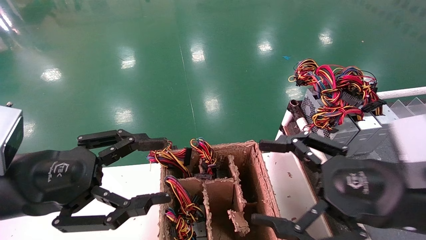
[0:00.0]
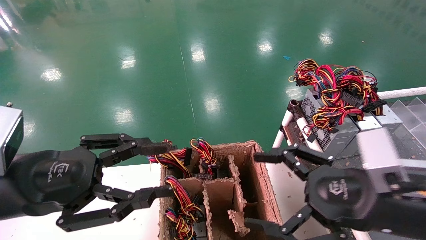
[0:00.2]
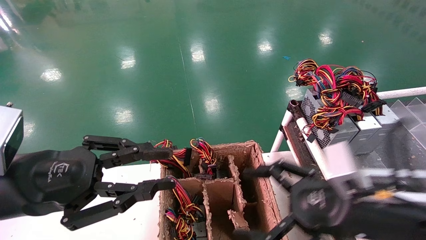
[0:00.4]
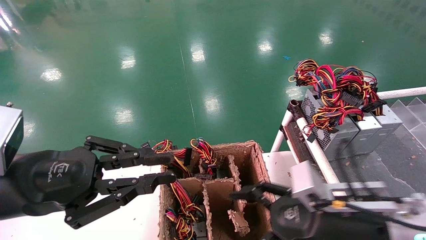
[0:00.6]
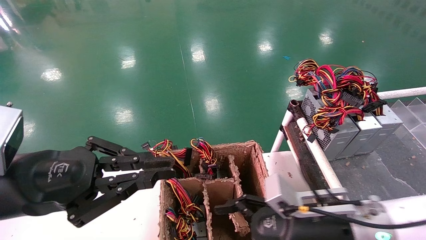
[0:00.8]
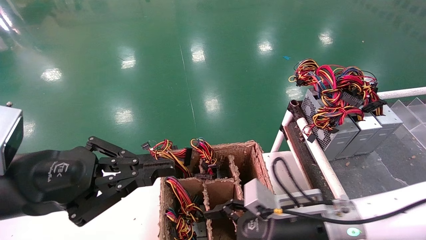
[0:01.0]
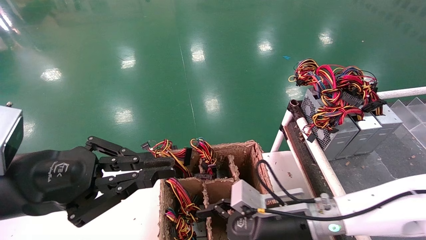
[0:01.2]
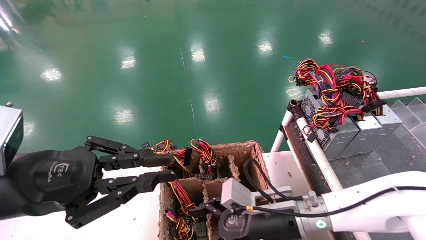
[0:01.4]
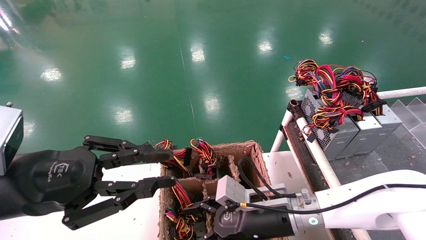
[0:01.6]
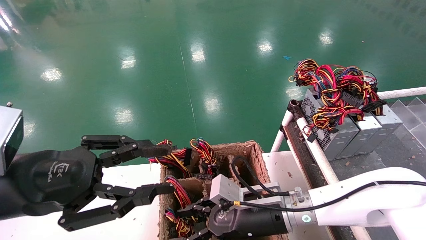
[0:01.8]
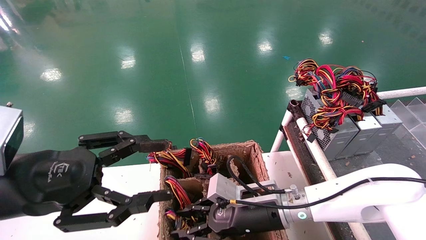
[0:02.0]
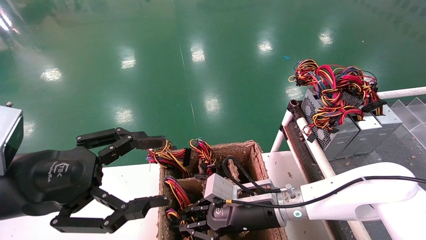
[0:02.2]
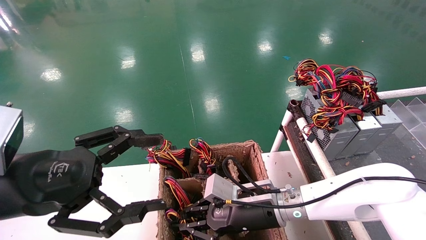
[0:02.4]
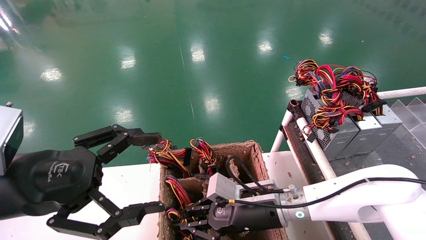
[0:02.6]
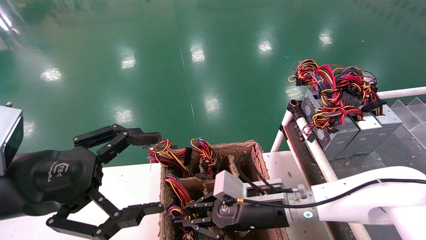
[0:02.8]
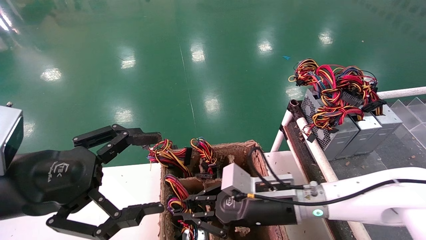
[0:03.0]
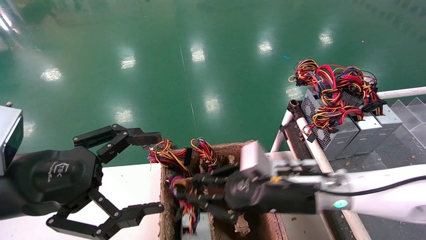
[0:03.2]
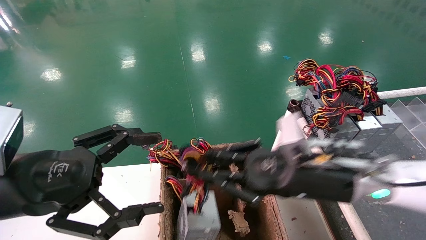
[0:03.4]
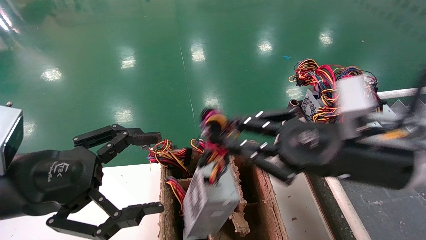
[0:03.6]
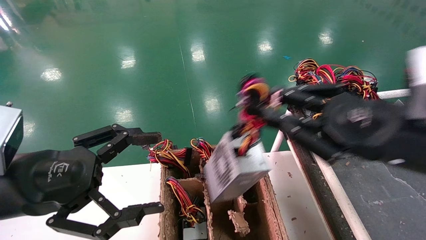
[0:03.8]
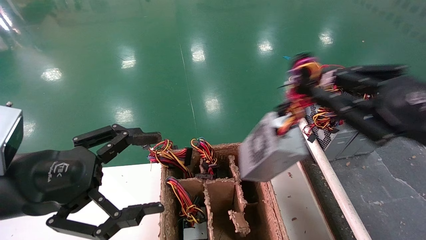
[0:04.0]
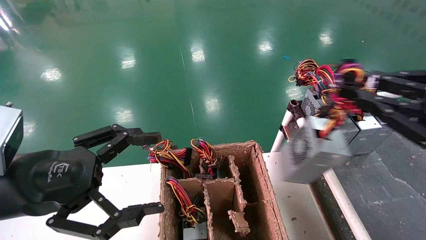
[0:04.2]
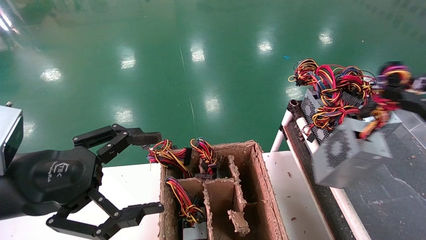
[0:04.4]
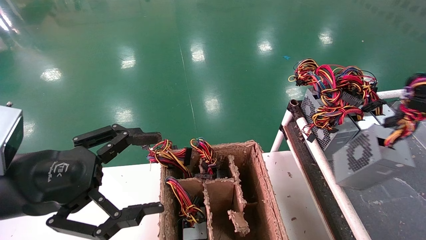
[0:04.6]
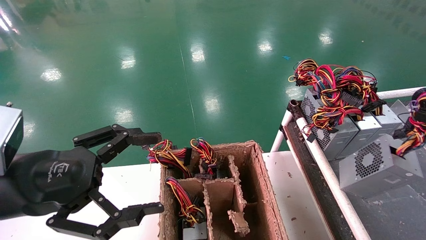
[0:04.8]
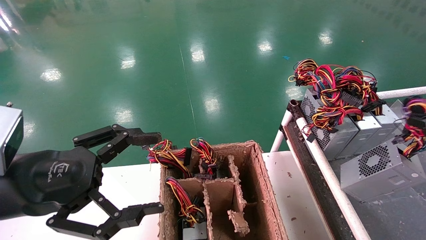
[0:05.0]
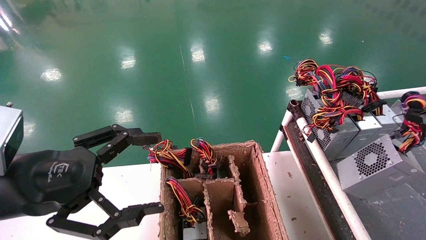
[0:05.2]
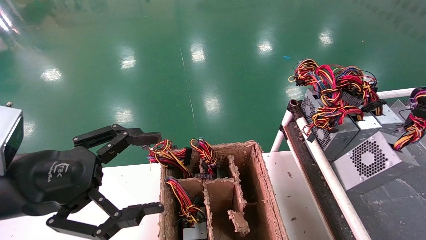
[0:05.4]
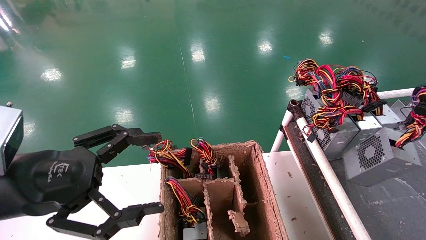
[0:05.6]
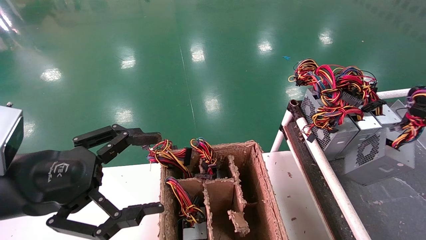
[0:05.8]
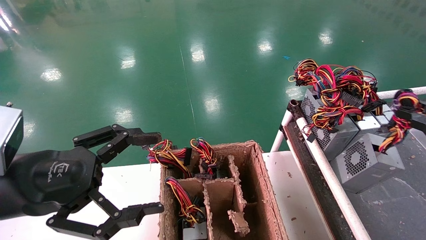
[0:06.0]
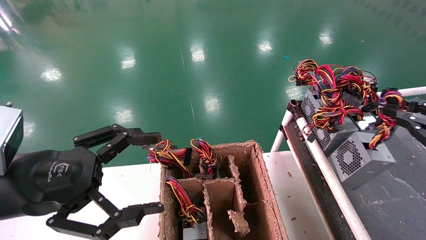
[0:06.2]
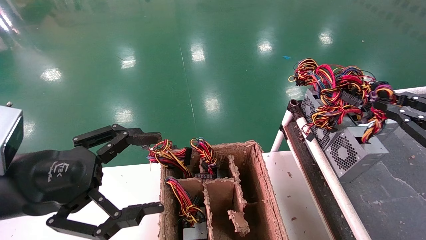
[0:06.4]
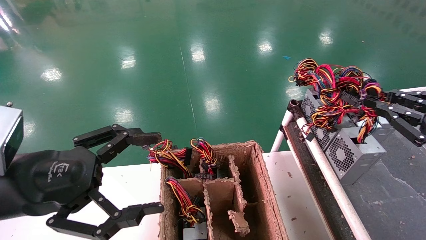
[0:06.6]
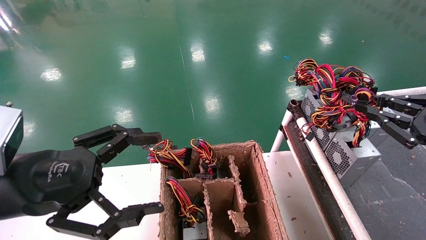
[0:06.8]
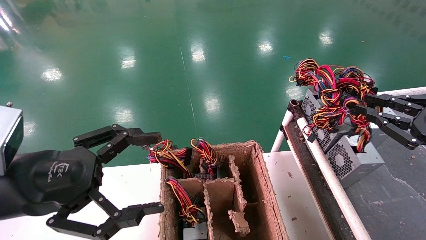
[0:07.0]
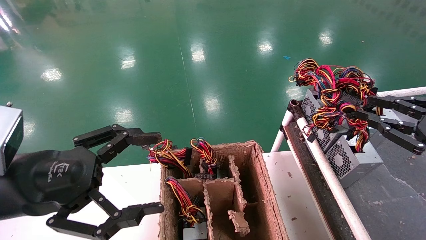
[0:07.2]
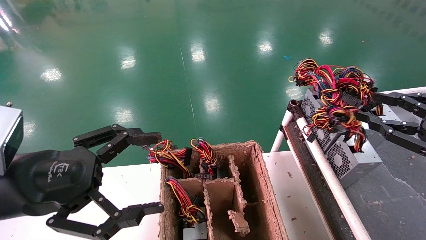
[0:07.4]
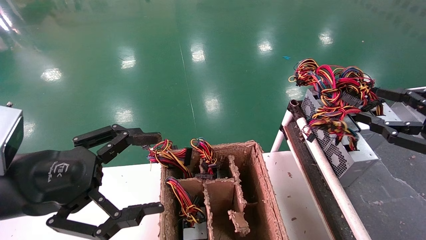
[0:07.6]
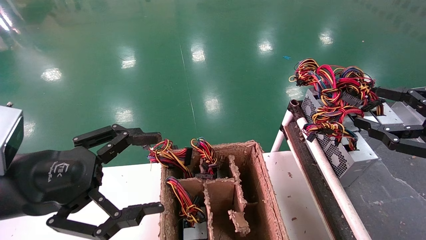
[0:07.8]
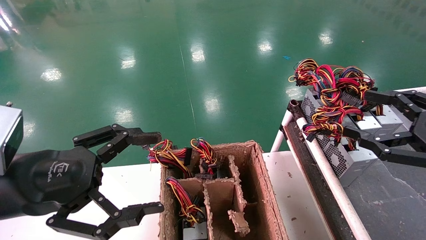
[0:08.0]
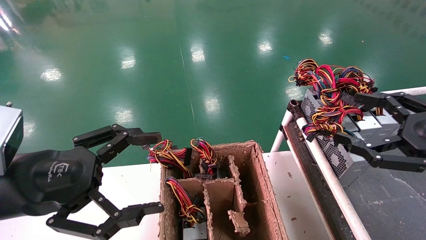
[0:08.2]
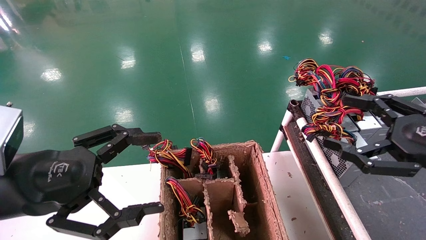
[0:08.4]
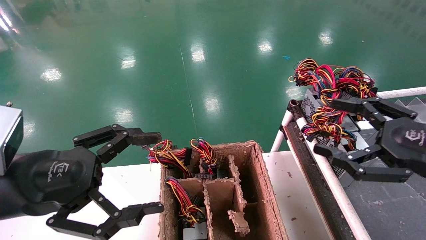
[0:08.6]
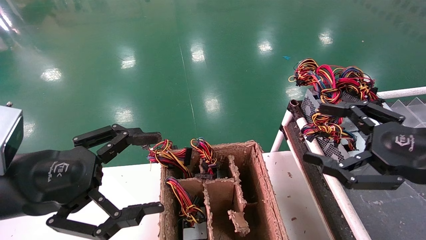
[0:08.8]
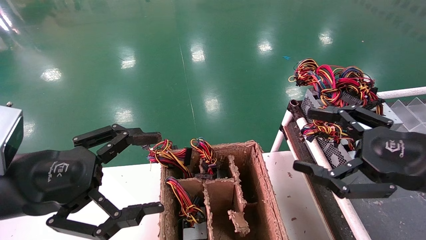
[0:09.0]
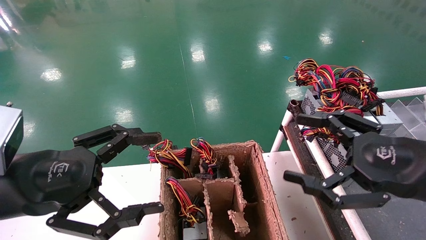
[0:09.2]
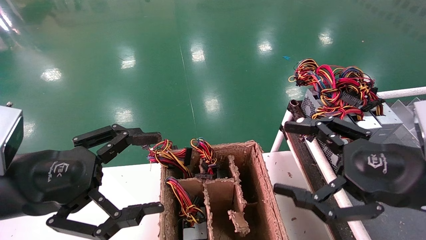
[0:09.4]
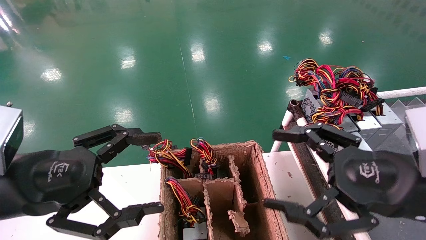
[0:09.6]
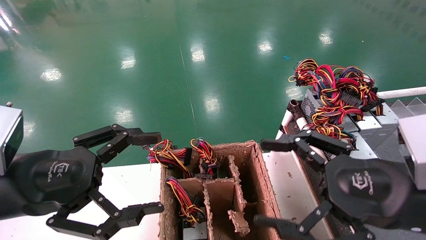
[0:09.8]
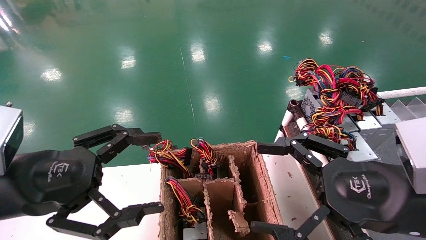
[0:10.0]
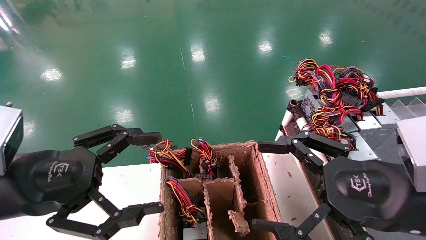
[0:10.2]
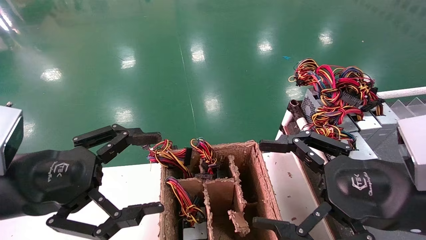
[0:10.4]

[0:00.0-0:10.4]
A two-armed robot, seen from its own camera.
Step, 0:00.8 to 0:03.2: Grab and lift the power supply from the large box.
Step, 0:03.4 to 0:07.4: Place the power supply on the operating table.
0:00.0 to 0:01.4: The left gripper closes its fingers. Meanwhile the right gripper shifts approximately 20 cm to the left, downward and forward.
0:01.4 to 0:03.0: The right gripper closes. The left gripper opens its fingers.
0:03.0 to 0:04.4: The right gripper shifts some 35 cm to the right, upward and backward.
0:04.4 to 0:06.0: The right gripper shifts by about 5 cm.
0:06.0 to 0:07.4: The grippers make only small movements.
0:07.4 to 0:09.0: The right gripper shifts approximately 10 cm to the left, and opens.
0:09.0 to 0:10.4: The right gripper goes about 5 cm to the left.

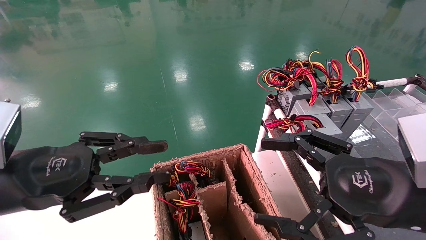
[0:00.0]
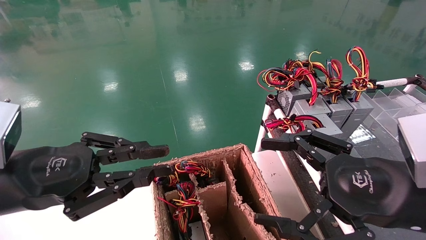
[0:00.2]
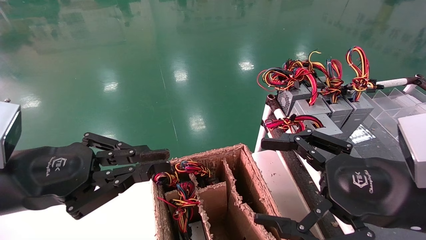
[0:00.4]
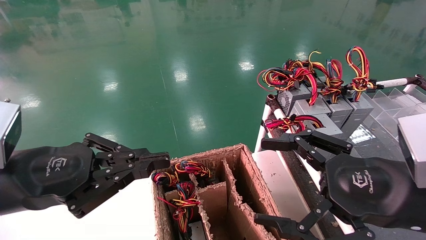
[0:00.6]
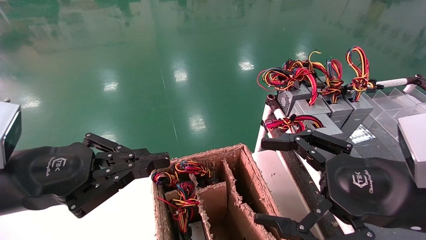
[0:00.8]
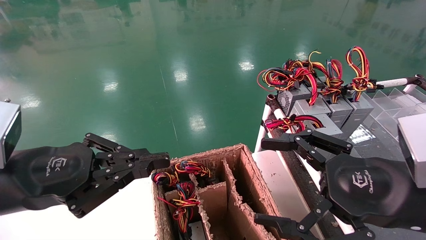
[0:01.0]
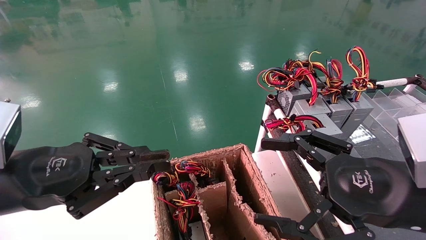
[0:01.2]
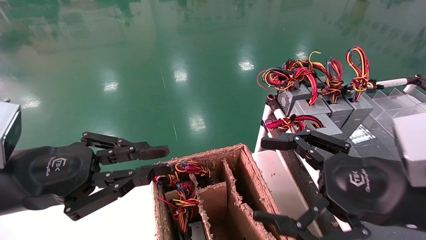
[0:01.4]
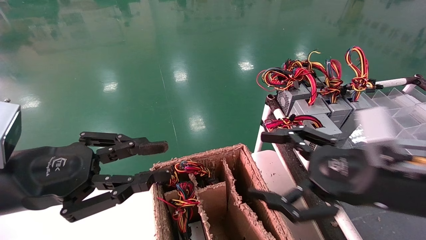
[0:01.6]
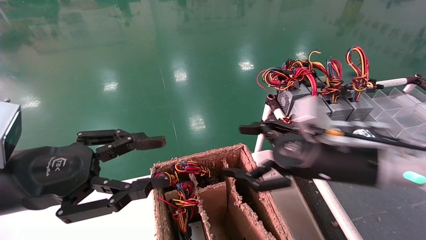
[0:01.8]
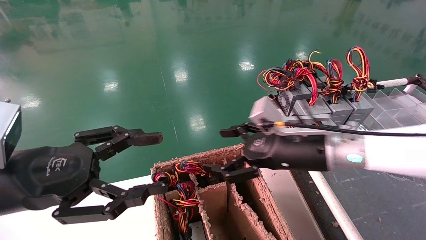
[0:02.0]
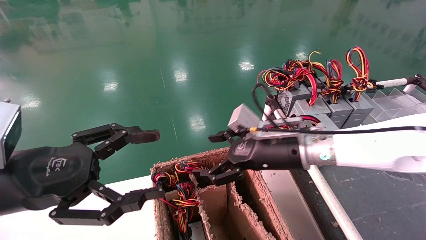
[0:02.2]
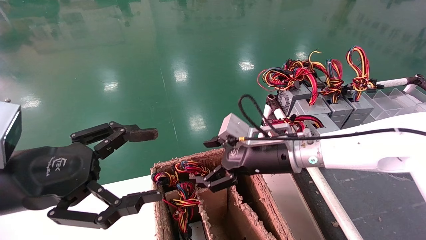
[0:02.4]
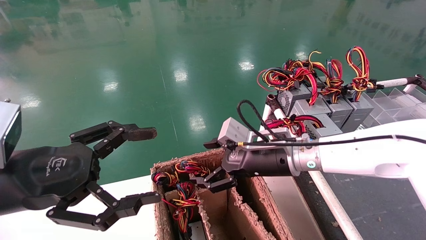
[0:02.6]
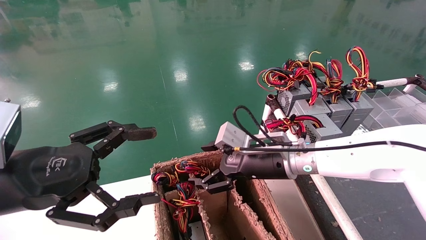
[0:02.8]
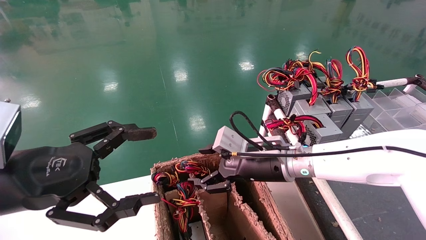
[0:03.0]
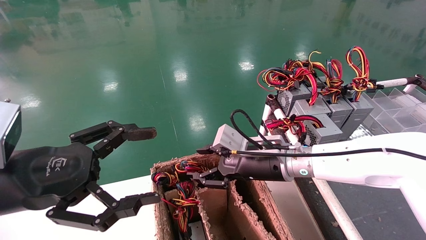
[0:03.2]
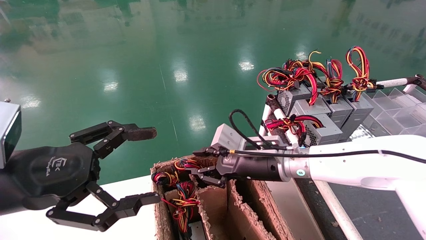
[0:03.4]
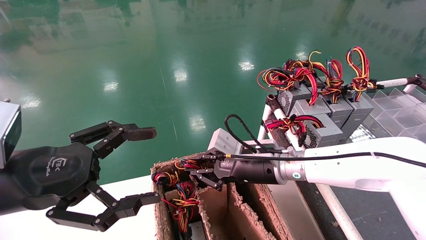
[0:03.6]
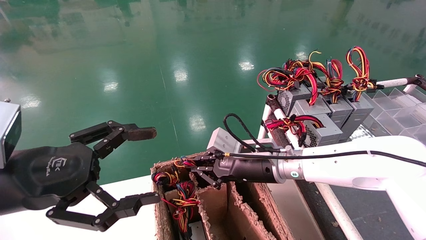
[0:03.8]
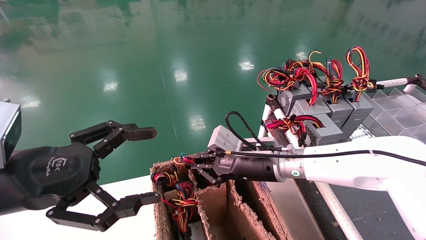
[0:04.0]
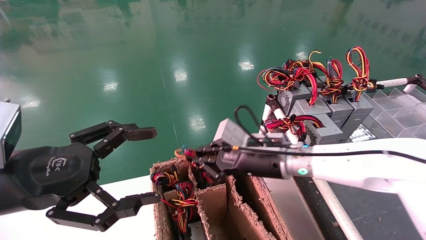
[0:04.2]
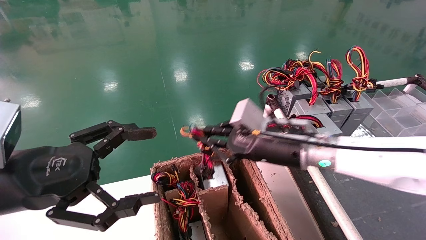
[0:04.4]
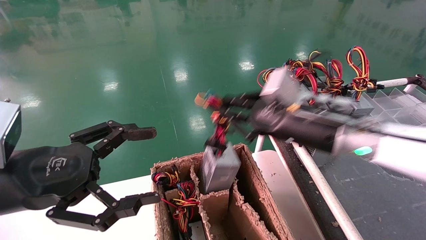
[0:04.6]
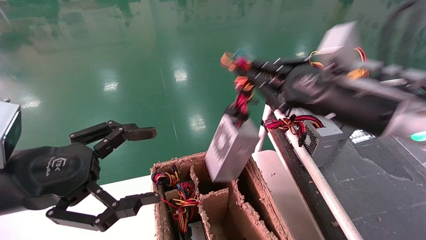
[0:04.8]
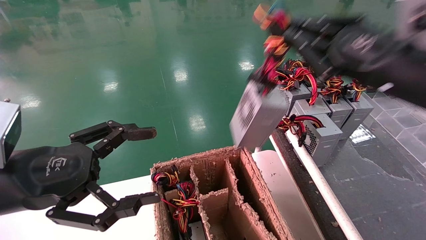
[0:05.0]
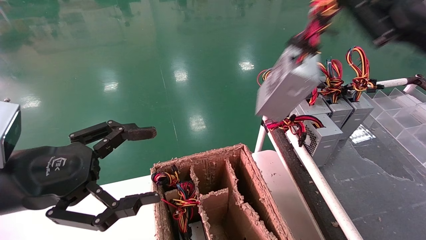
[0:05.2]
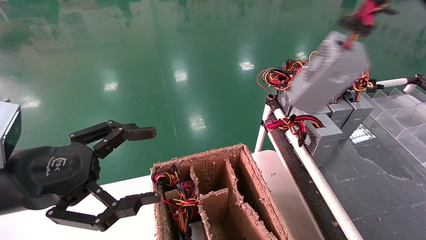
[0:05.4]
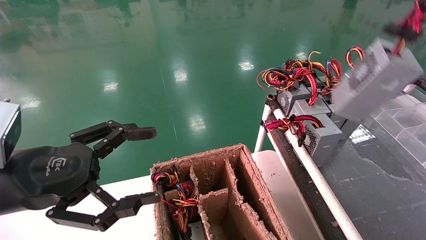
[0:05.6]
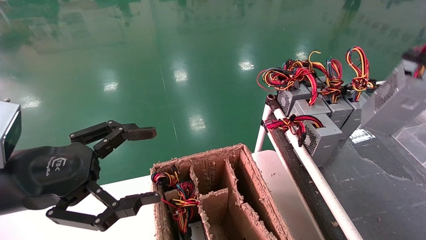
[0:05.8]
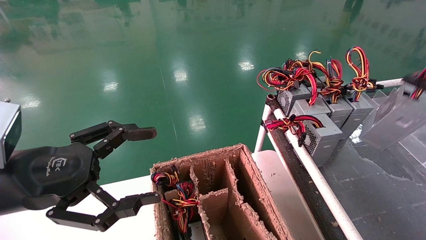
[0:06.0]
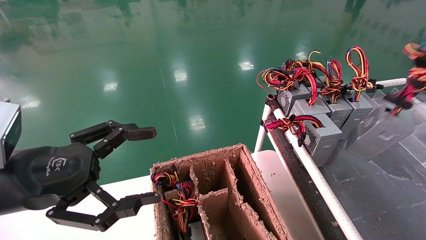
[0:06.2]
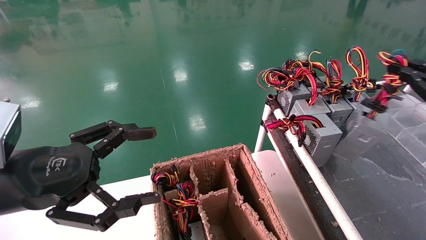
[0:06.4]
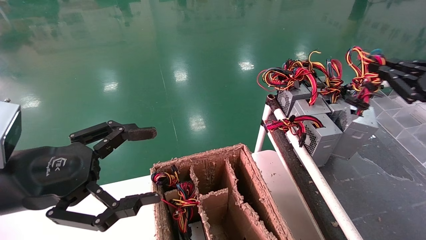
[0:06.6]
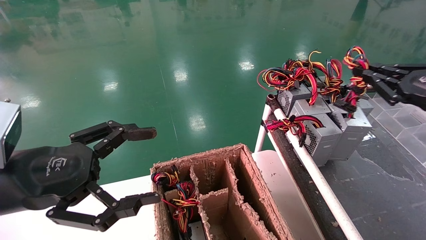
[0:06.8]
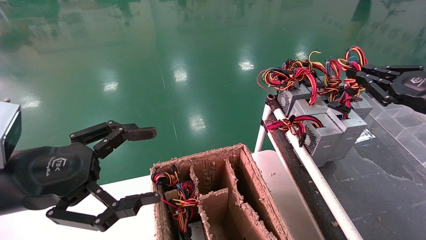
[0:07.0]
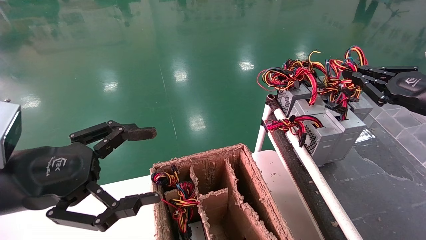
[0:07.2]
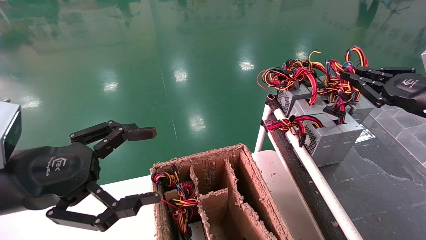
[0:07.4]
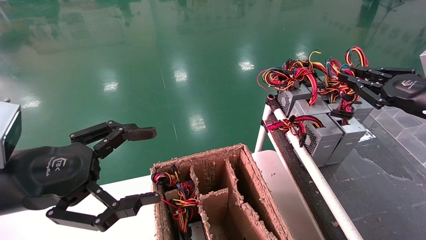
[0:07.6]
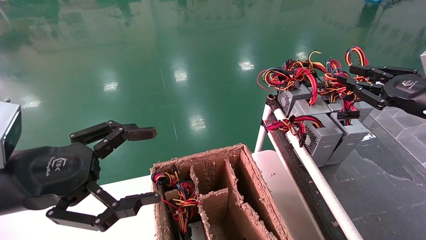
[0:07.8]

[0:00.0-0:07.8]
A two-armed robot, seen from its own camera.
Step, 0:00.8 to 0:03.8: Grab and lift the power supply from the large box.
Step, 0:04.0 to 0:07.2: Place the power supply on the operating table.
0:00.0 to 0:01.6: The right gripper travels forward by approximately 5 cm.
0:01.6 to 0:03.2: The left gripper opens its fingers; the right gripper travels to the left, forward and downward by some 20 cm, and closes.
0:03.2 to 0:04.6: The right gripper heads upward and to the right, covering roughly 10 cm, and closes.
0:04.6 to 0:06.2: The right gripper goes some 30 cm to the right.
0:06.2 to 0:07.8: The right gripper is displaced forward and to the left by some 10 cm.
